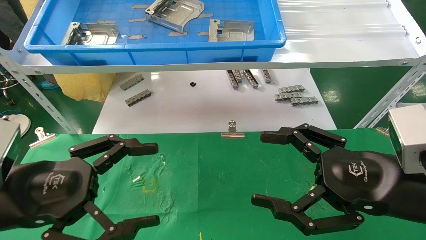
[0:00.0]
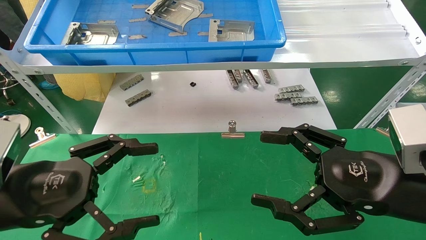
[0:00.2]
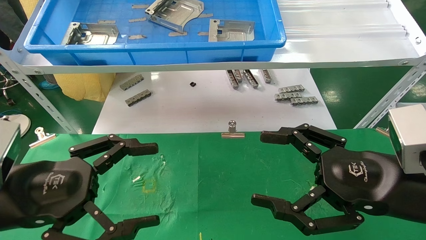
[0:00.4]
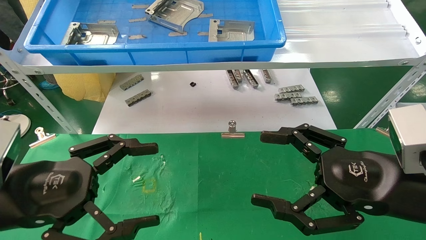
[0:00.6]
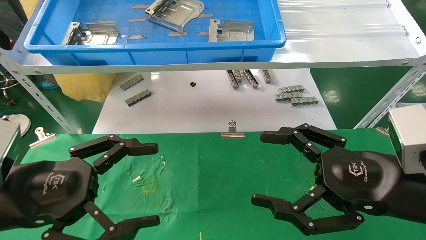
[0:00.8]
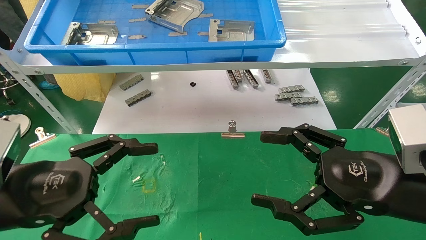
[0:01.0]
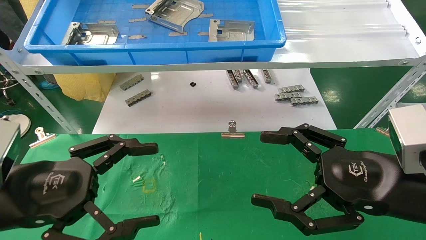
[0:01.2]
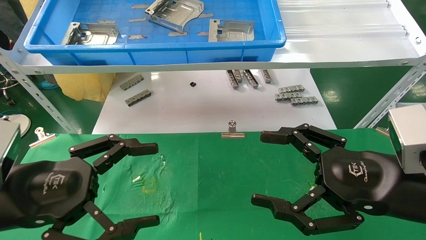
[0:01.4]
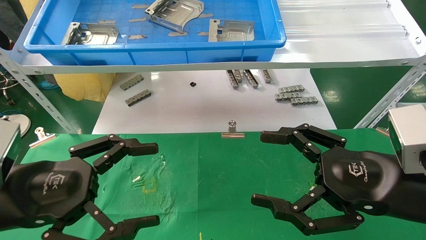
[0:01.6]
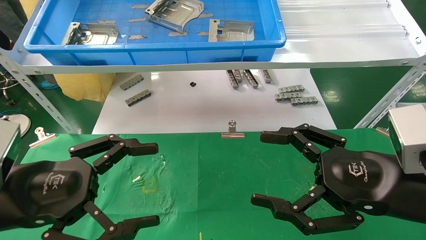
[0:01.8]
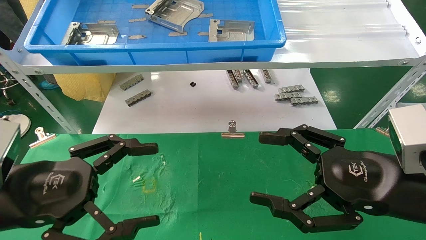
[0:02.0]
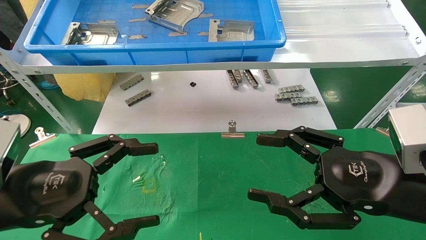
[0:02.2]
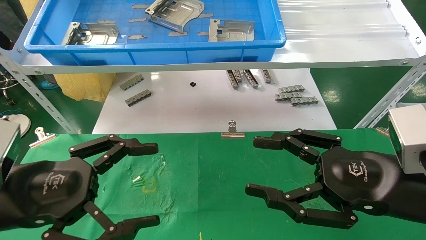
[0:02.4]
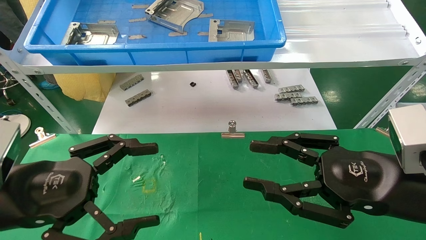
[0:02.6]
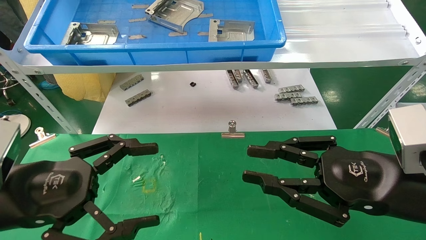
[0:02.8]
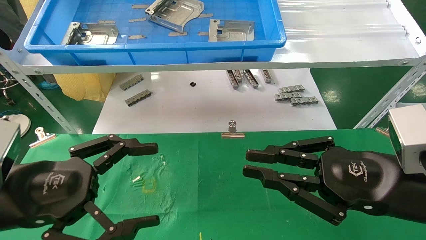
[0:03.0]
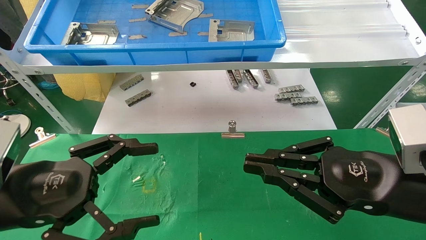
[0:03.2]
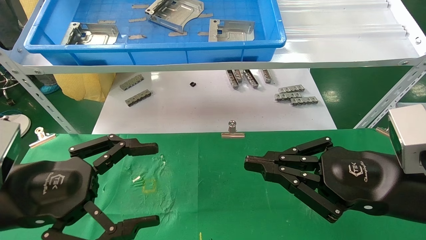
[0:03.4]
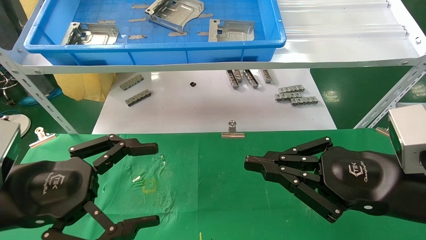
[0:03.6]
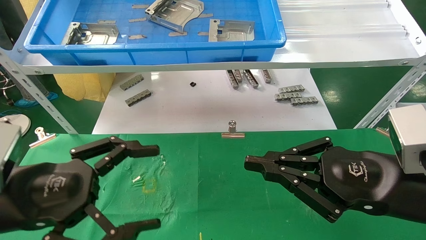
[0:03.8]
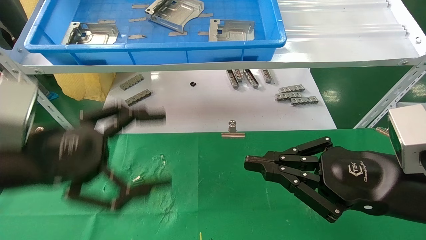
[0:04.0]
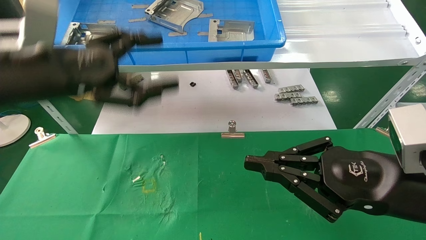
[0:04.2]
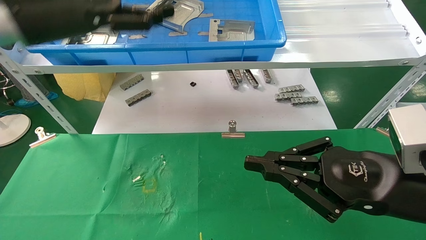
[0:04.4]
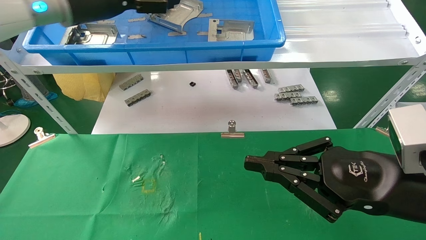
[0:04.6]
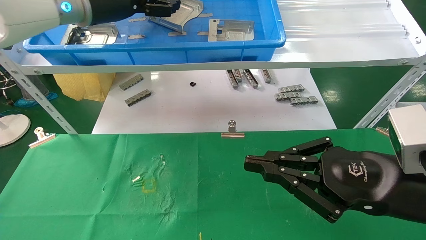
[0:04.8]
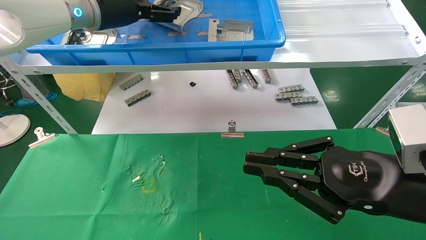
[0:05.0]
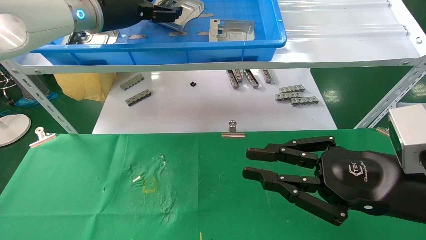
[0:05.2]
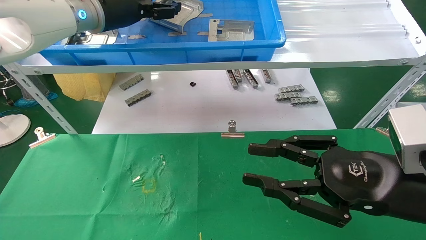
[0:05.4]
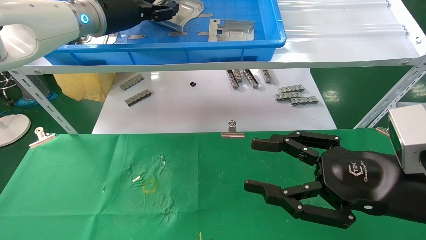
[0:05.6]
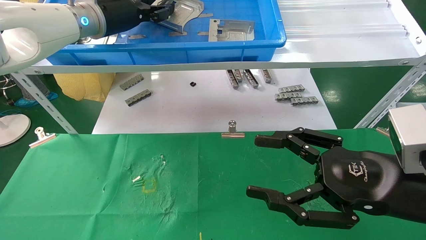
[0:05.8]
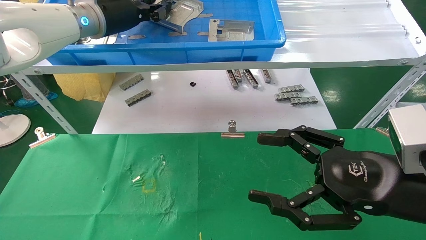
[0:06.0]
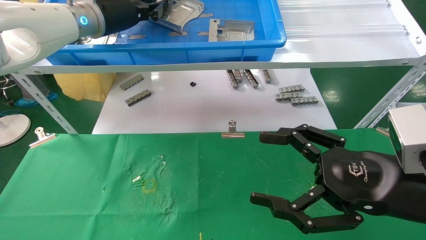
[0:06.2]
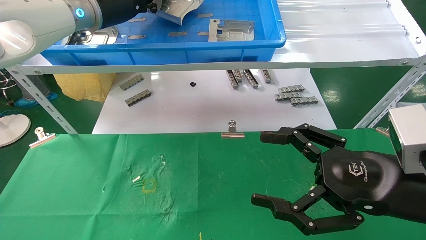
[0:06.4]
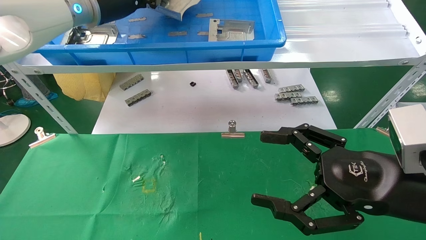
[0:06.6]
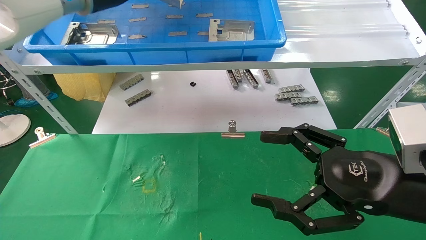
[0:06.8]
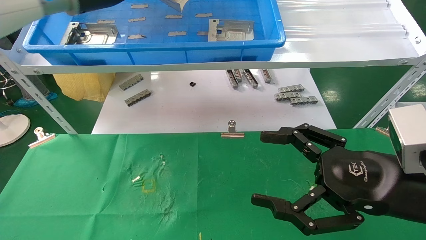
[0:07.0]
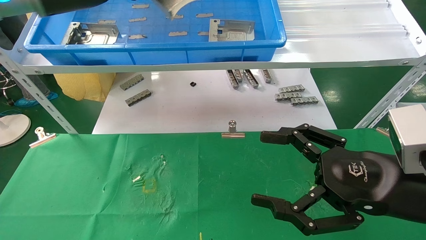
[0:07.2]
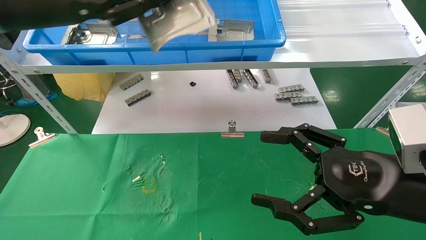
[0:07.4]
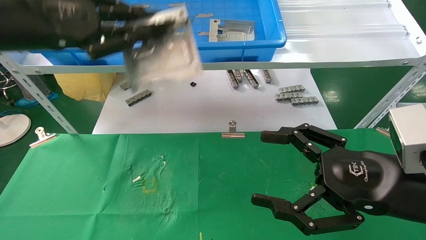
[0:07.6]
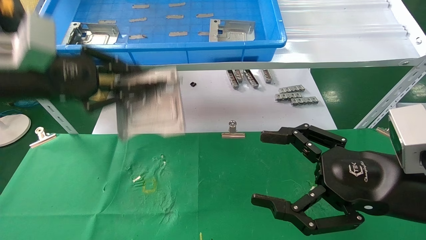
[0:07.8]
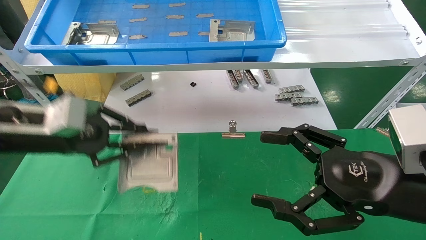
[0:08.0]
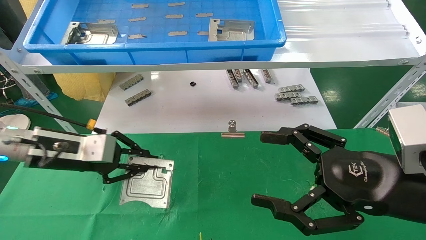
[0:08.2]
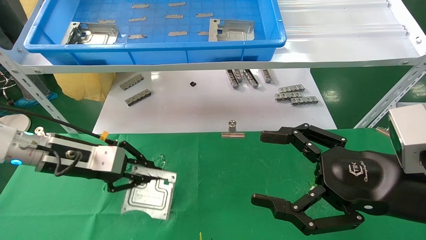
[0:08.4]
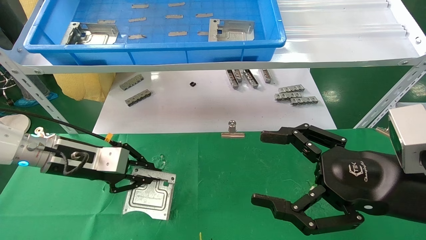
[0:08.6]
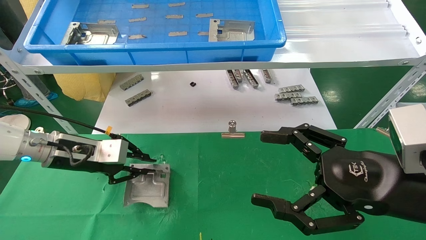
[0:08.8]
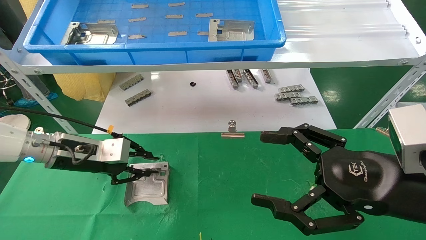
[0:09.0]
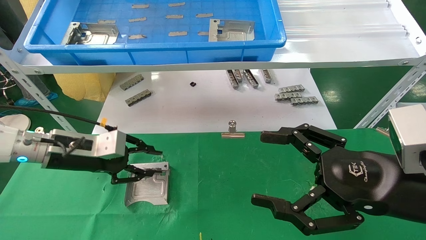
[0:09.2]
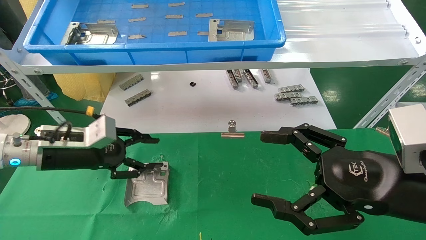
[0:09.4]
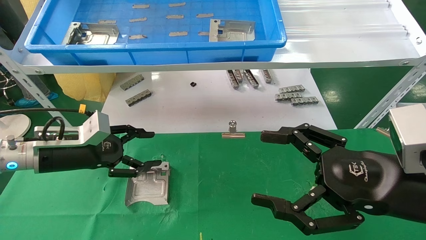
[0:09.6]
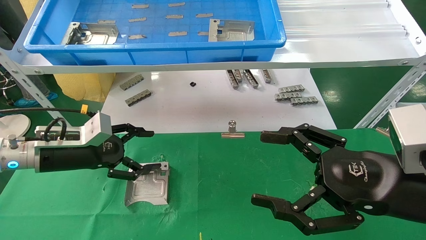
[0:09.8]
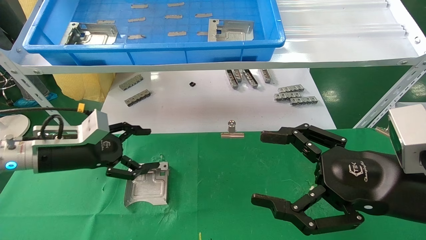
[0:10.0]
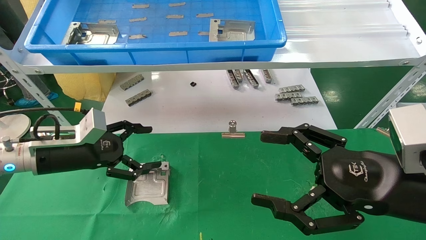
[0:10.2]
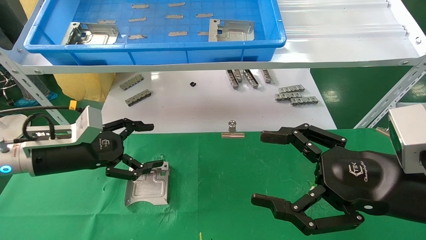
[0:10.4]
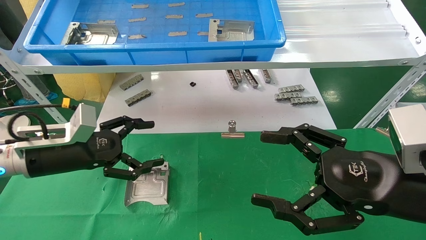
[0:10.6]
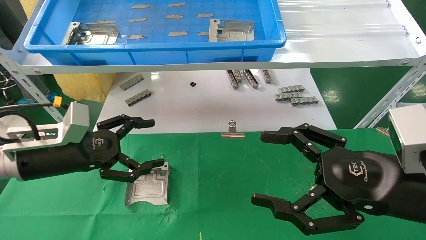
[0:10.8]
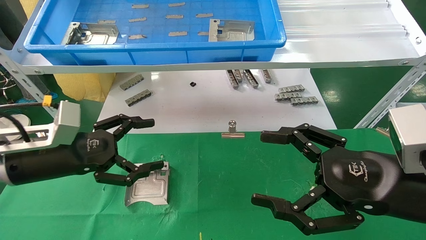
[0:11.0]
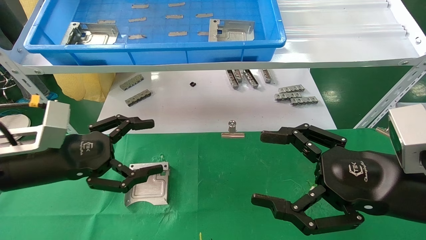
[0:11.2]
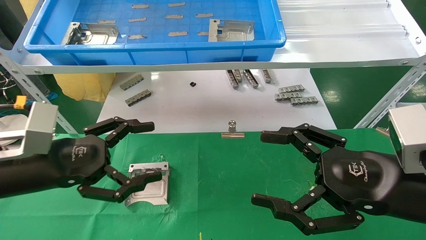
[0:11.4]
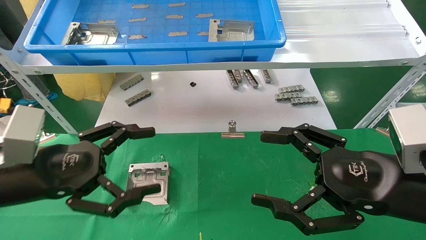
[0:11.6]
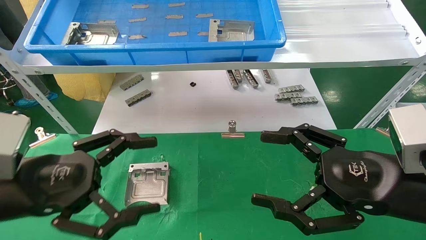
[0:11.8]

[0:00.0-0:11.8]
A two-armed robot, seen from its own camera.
Task of the whole recording: use the mechanical arm to pick up the parts and place them on the table.
Step, 0:04.0 to 0:06.2: Pick up the hard drive bracket from the feeding area.
Step, 0:06.4 to 0:09.4: Place the hard drive bracket into the box.
0:00.0 to 0:01.4: Both grippers stay about where they are.
0:01.4 to 0:03.0: The right gripper closes.
0:03.0 to 0:04.4: The left gripper heads upward and forward, covering some 25 cm.
0:04.4 to 0:06.0: The left gripper heads forward, covering approximately 10 cm, and closes up. The right gripper opens.
0:06.0 to 0:07.4: The left gripper goes about 15 cm backward and to the left.
0:07.4 to 0:08.8: The left gripper travels downward by about 25 cm.
0:08.8 to 0:10.4: The left gripper opens.
0:10.4 to 0:11.8: The left gripper heads backward, covering some 15 cm.

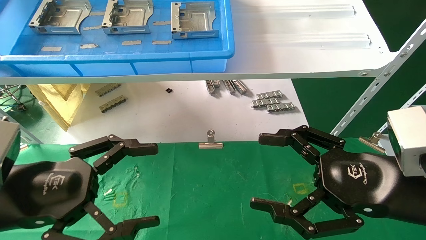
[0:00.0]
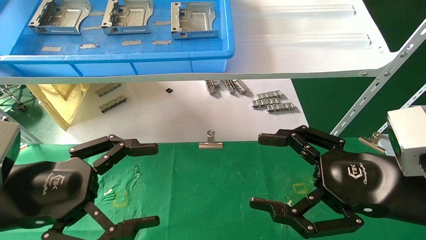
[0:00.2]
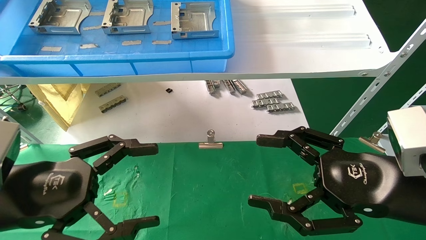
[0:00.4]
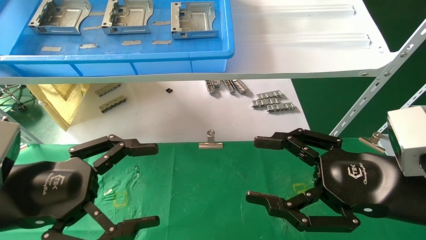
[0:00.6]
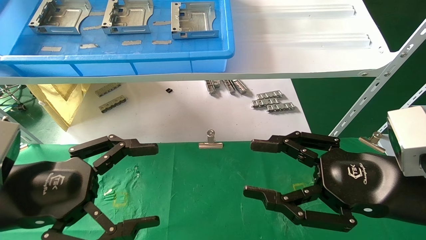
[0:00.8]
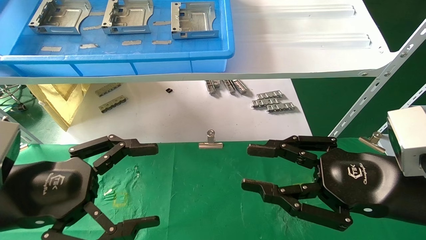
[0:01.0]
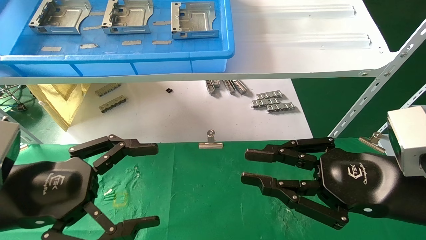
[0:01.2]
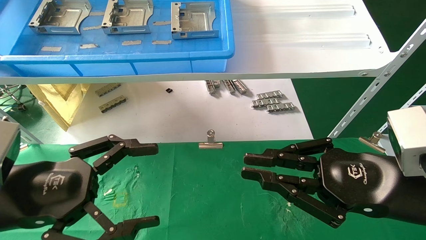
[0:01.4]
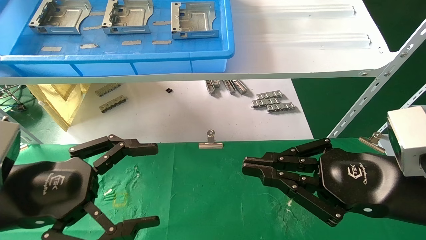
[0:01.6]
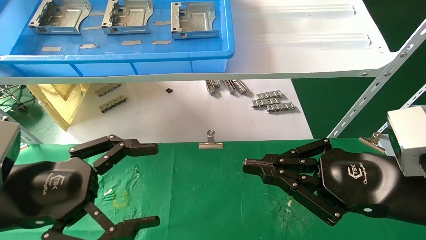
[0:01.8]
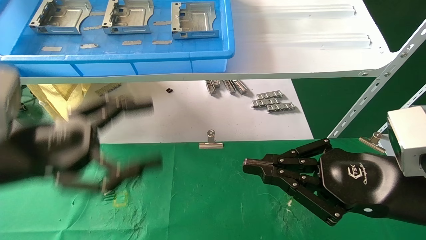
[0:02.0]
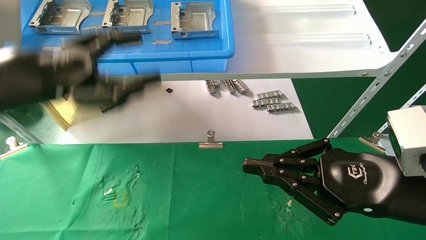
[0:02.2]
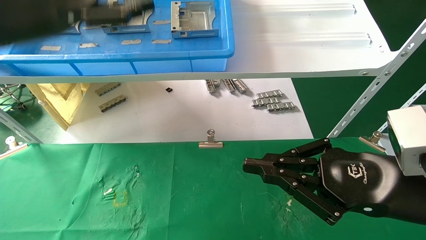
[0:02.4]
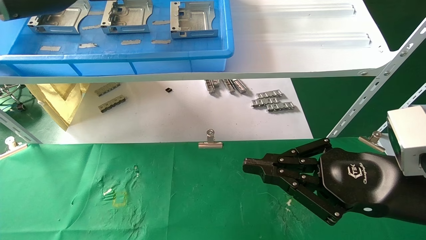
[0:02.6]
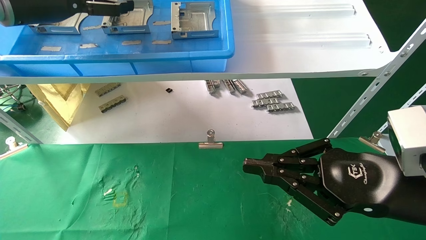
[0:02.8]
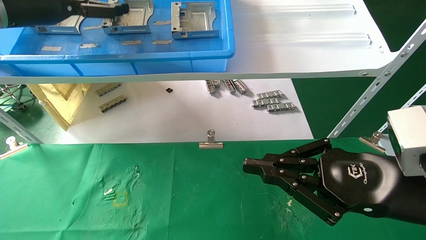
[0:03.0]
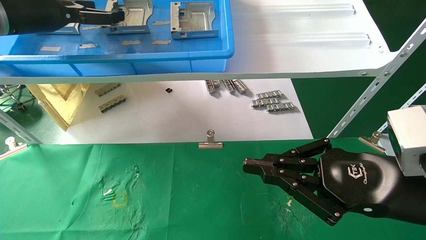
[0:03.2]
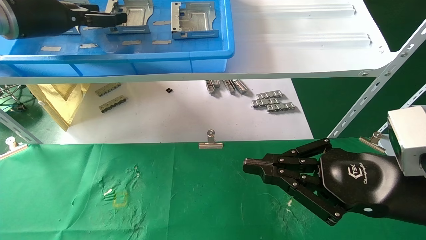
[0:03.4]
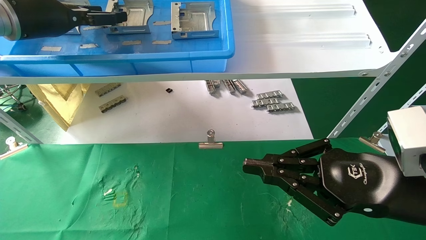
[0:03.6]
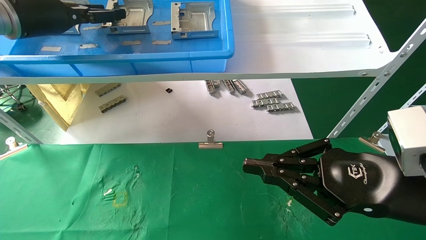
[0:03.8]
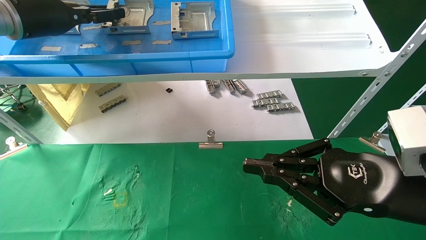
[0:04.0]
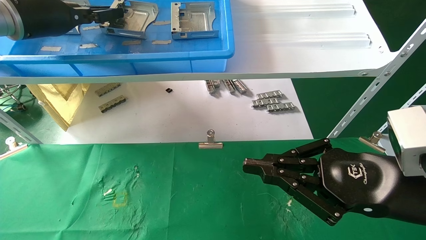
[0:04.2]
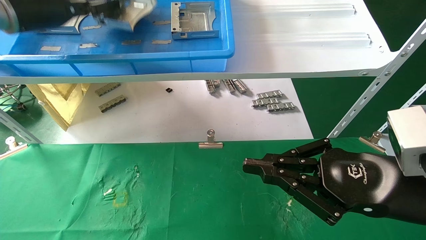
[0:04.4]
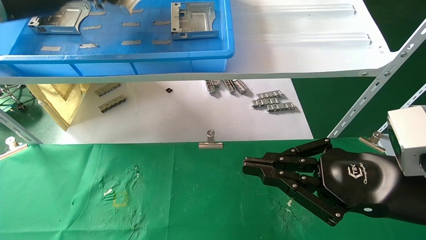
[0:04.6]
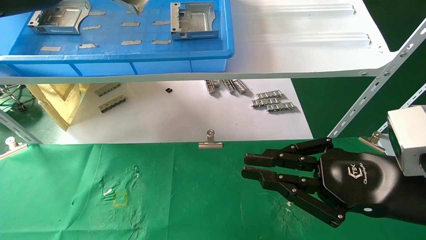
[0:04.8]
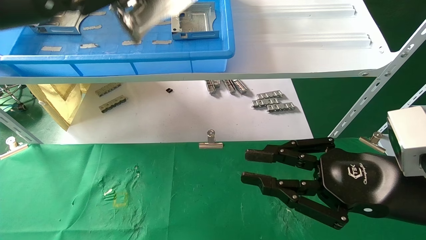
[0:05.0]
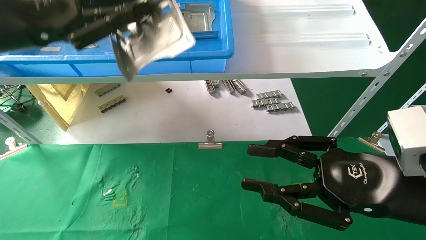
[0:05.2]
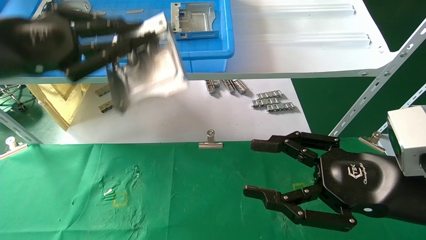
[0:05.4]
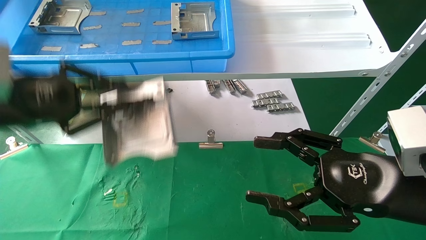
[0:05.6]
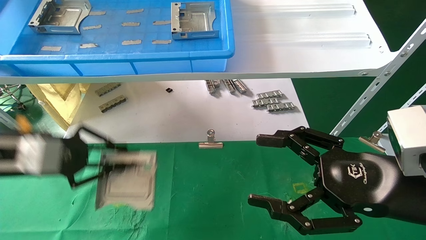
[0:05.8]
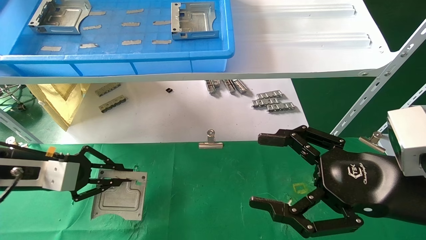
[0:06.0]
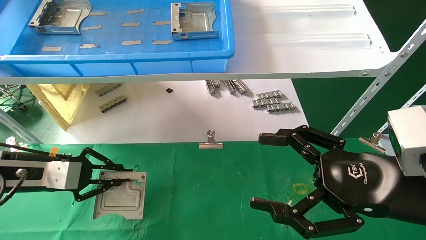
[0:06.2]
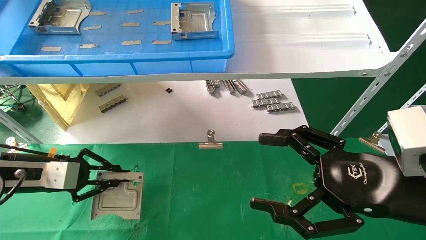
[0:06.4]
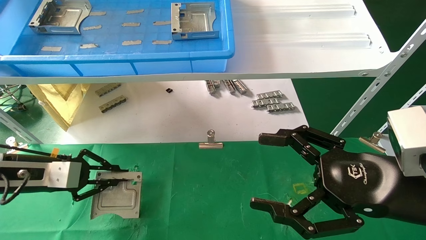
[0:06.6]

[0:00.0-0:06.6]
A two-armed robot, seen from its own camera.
Task of the whole recording: use the mechanical arm to pick up the parts and place them on the table.
Step, 0:01.4 to 0:04.4: Pick up the hard drive bracket from the feeding area.
0:00.0 to 0:01.6: The right gripper closes up.
0:01.6 to 0:03.2: The left gripper heads upward and forward, covering approximately 30 cm.
0:03.2 to 0:05.0: The left gripper travels backward by approximately 10 cm, and closes up.
0:05.0 to 0:06.6: The left gripper travels downward by about 25 cm. Meanwhile the right gripper opens up.
